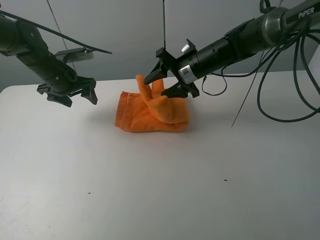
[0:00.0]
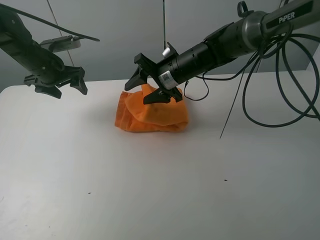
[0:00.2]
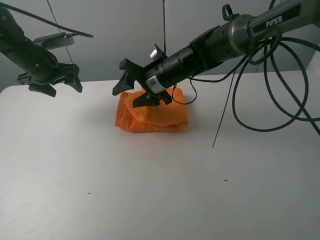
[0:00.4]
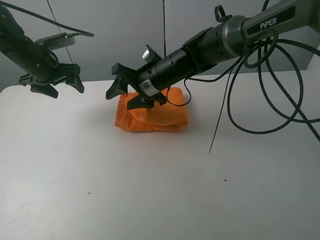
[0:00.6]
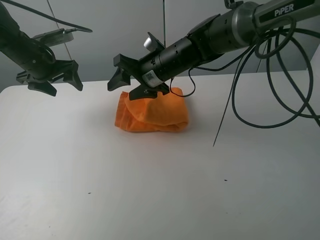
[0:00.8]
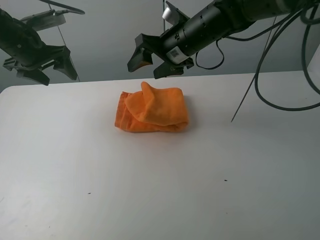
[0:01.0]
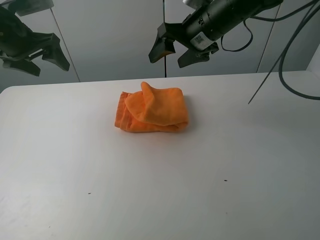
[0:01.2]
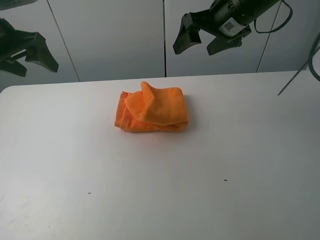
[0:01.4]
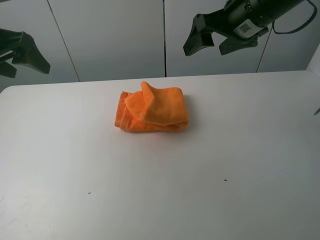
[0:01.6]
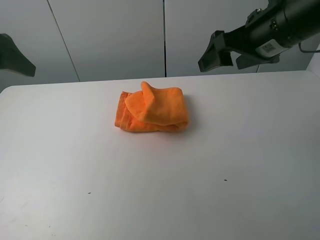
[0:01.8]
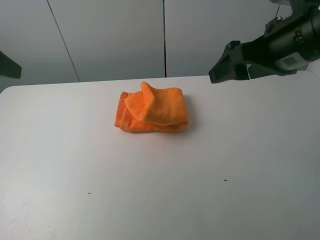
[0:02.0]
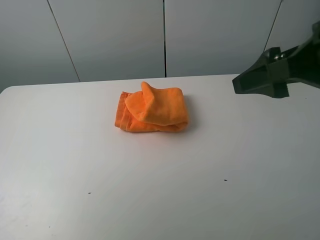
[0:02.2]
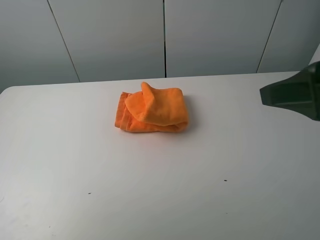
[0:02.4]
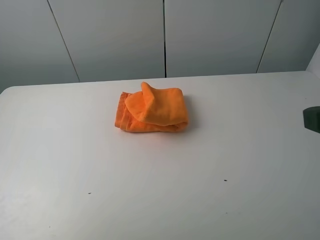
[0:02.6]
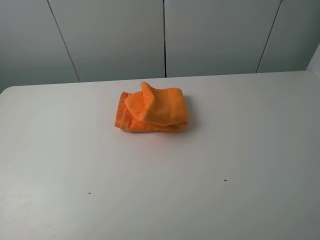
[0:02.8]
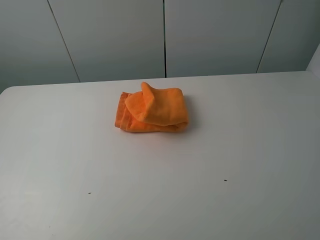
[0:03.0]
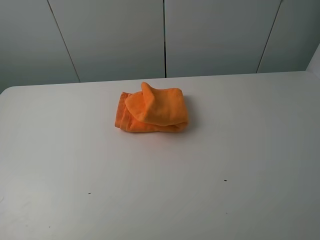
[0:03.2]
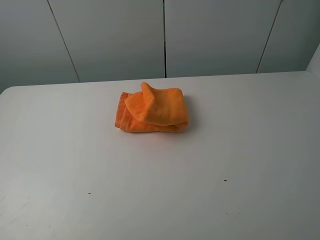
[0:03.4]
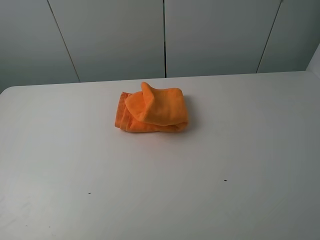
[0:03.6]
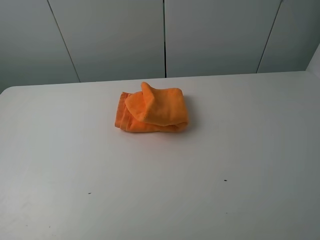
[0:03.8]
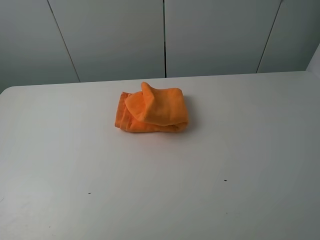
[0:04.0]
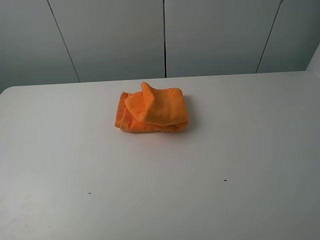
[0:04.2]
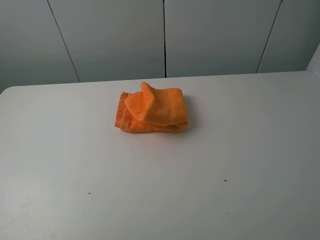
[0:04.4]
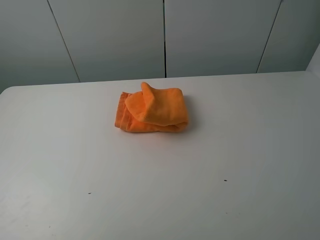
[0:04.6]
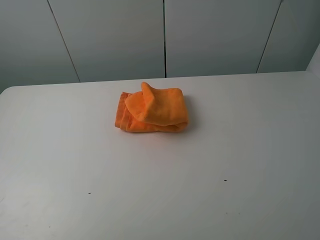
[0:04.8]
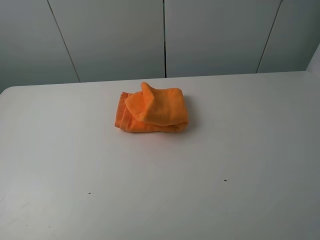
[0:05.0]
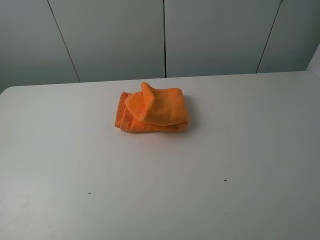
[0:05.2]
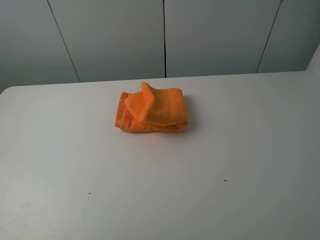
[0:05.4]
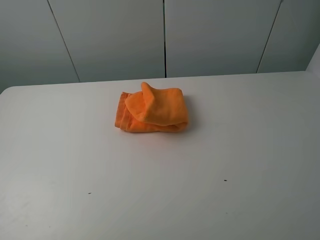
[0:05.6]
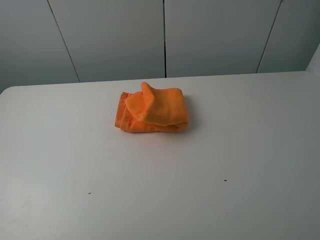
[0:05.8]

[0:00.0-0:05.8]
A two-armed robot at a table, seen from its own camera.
Task of the whole recording: fold the towels on the table.
0:00.0 to 0:01.4: The left gripper shifts roughly 15 cm upward and backward; the right gripper heads upward and to the right, covering approximately 15 cm.
0:01.4 to 0:02.8: The two grippers go about 30 cm backward.
